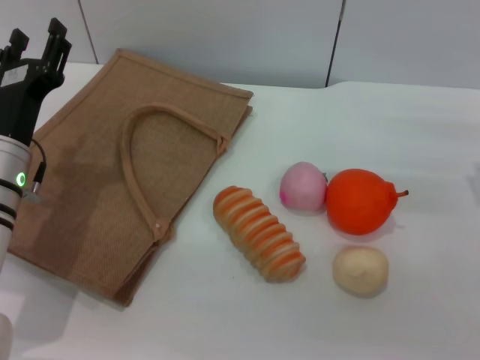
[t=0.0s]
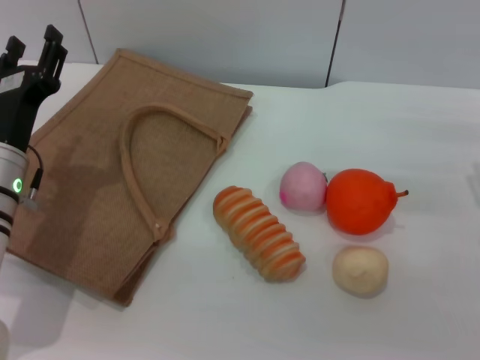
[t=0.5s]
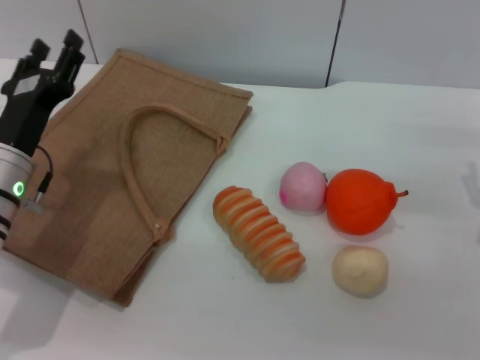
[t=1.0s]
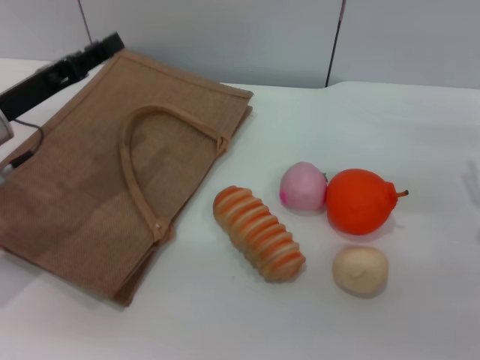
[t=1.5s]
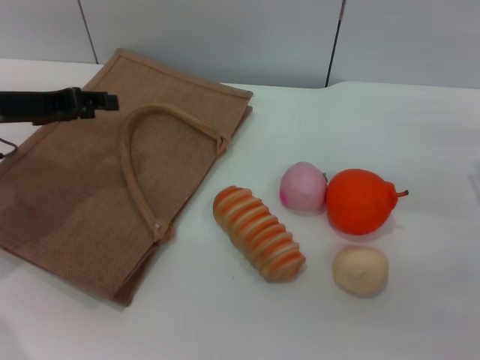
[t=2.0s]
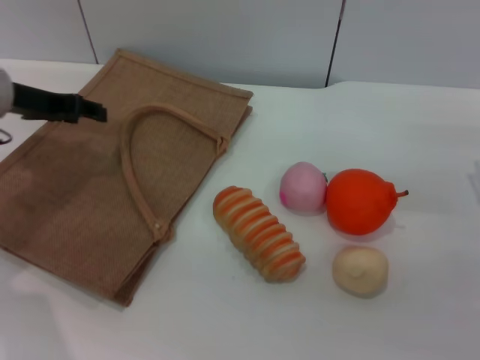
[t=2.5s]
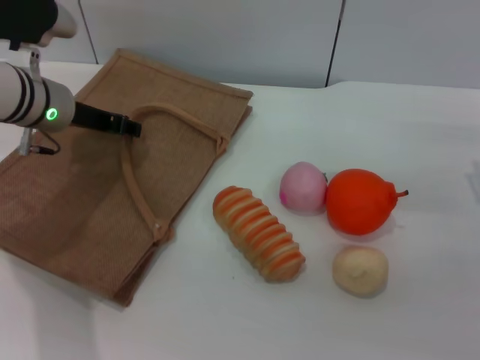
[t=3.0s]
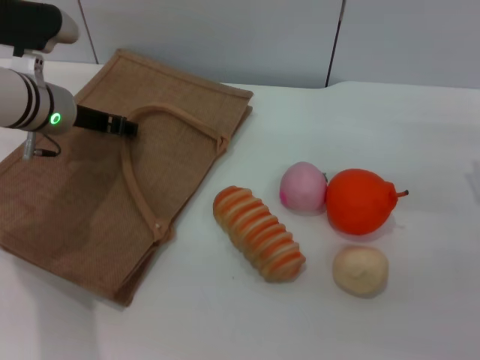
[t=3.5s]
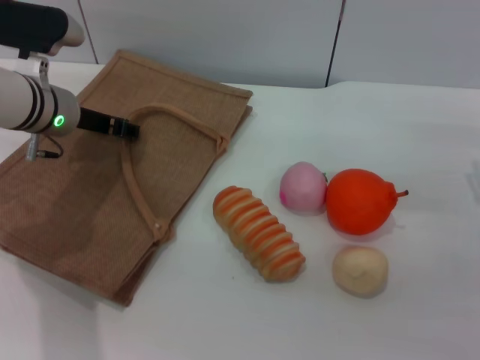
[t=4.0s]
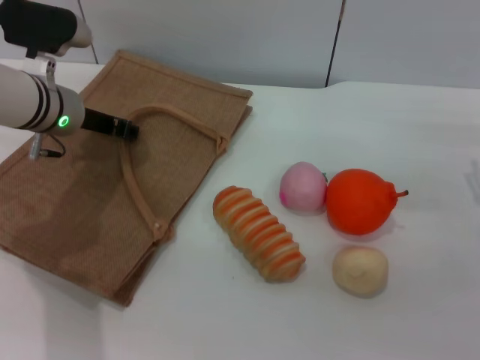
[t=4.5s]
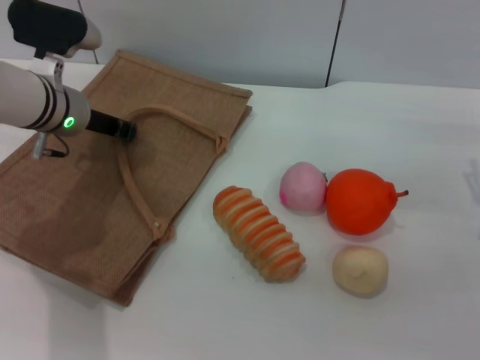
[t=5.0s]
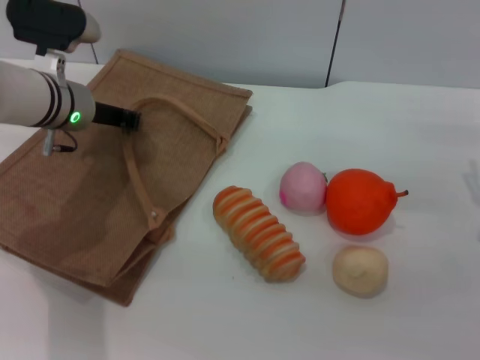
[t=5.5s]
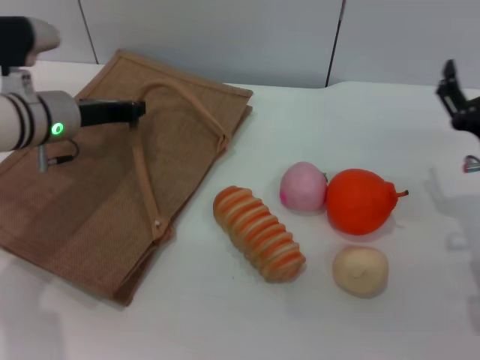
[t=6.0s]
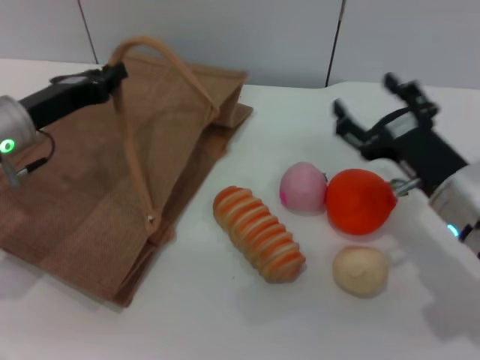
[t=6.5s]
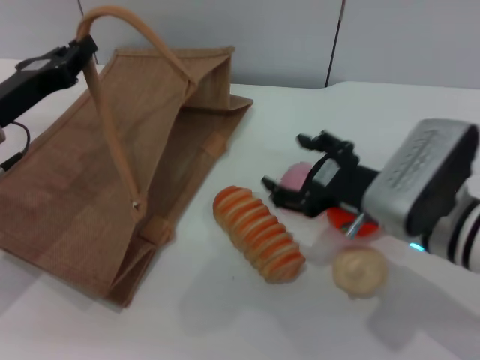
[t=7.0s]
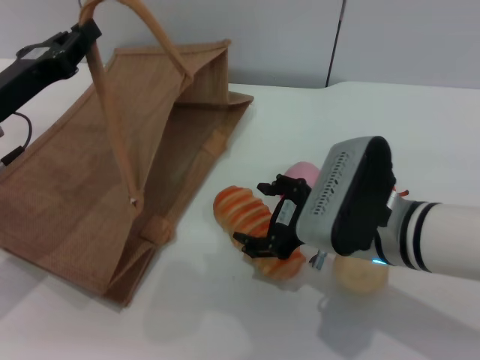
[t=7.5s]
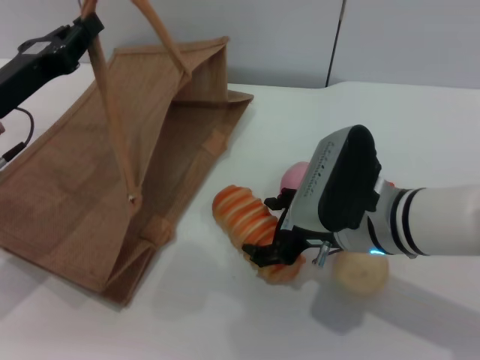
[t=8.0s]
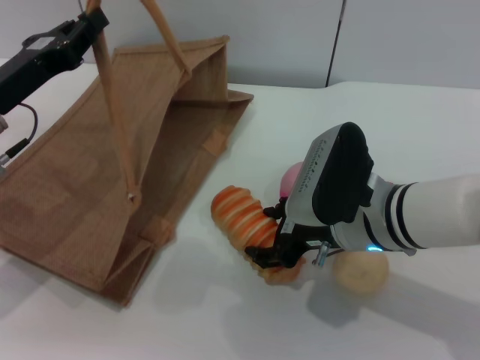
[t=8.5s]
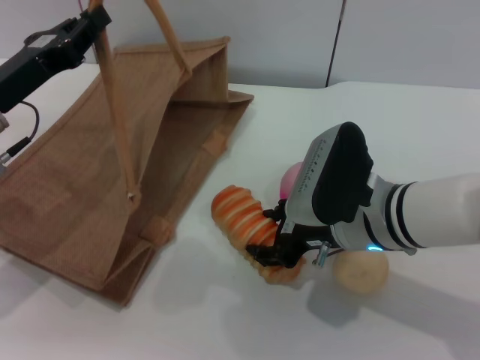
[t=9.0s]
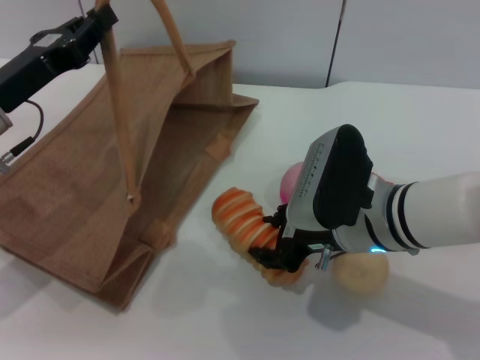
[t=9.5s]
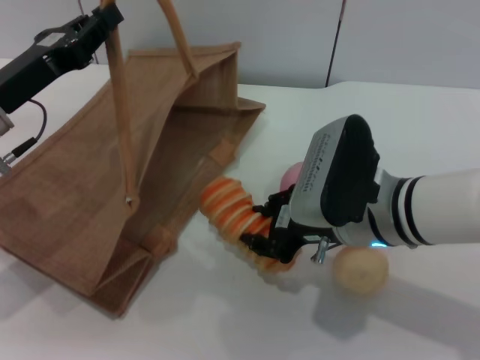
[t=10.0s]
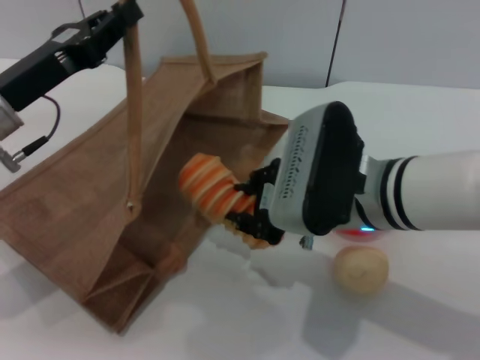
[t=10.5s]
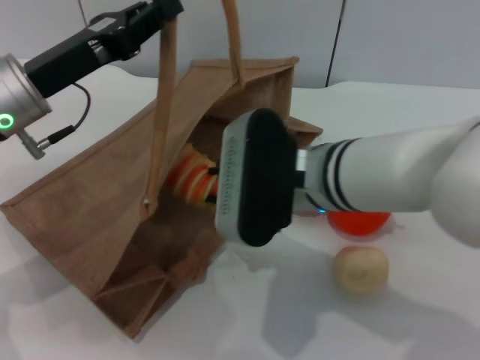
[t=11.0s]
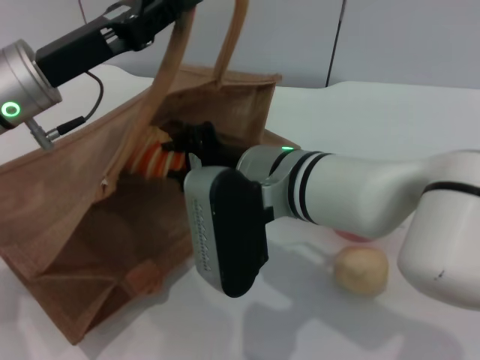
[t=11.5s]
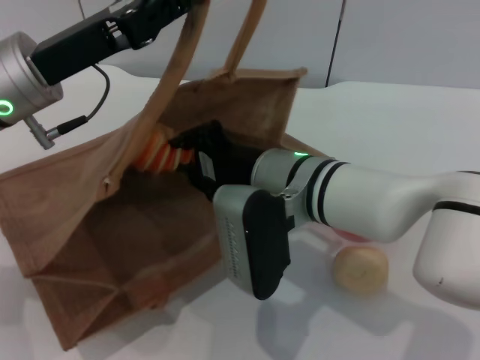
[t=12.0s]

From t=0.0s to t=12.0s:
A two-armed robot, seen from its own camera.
Task of the whole recording: pick up the bread and egg yolk pastry from the table and place it in the brown handbag.
Step, from t=0.0s to t=5.5s: Lift the woven bag with the left gripper to open it.
Step, from t=6.0s to t=10.0s: Pick up the bread with the right gripper.
From t=0.0s to t=2.0s: The left gripper is displaced upward, to the left and forward by some 10 cm.
From t=2.0s to t=4.0s: The left gripper is displaced to the right and forward by some 10 cm.
From t=4.0s to t=6.0s: The left gripper closes its fingers.
From t=6.0s to t=8.0s: The right gripper goes about 15 cm to the left; the left gripper travels backward by some 5 cm.
From t=8.0s to t=10.0s: The right gripper closes.
From t=10.0s to t=12.0s: The right gripper heads to the left, covering approximately 5 cm, while the left gripper heads to the right, covering about 5 cm.

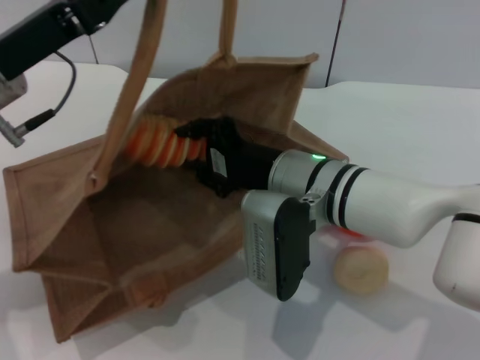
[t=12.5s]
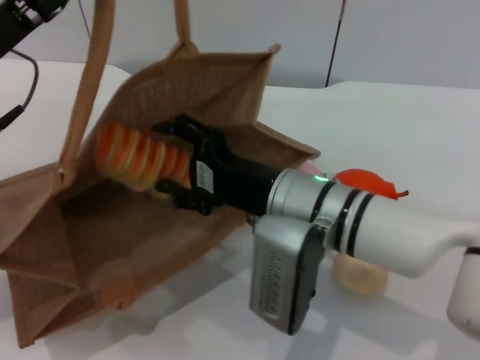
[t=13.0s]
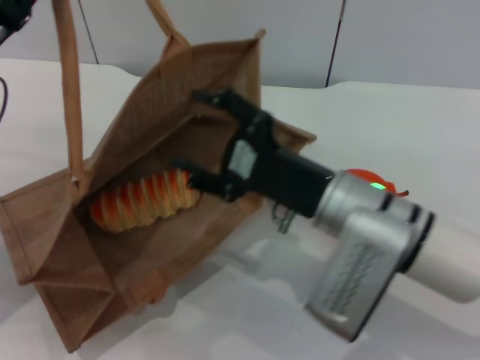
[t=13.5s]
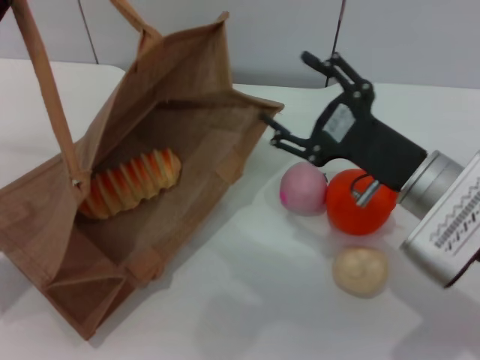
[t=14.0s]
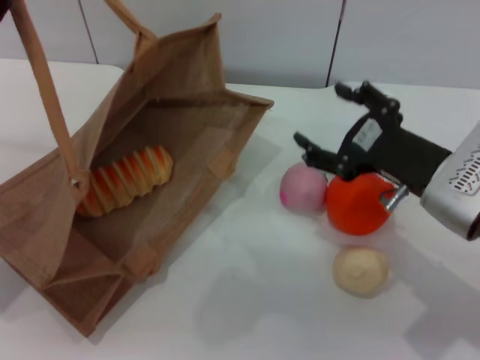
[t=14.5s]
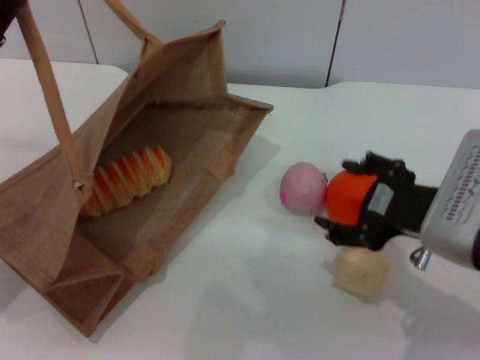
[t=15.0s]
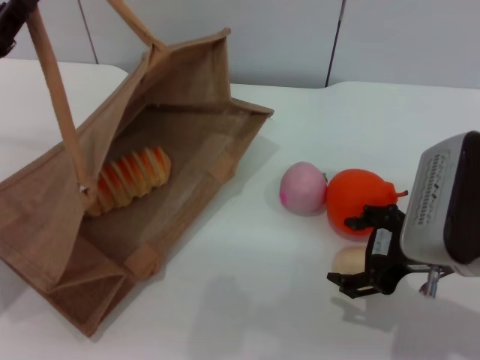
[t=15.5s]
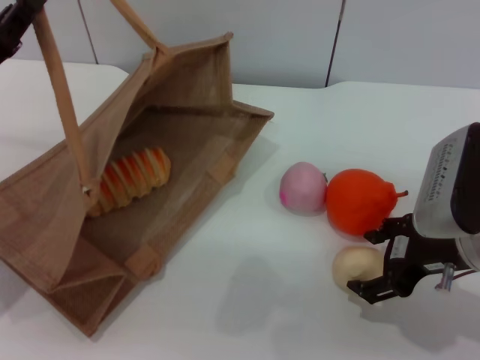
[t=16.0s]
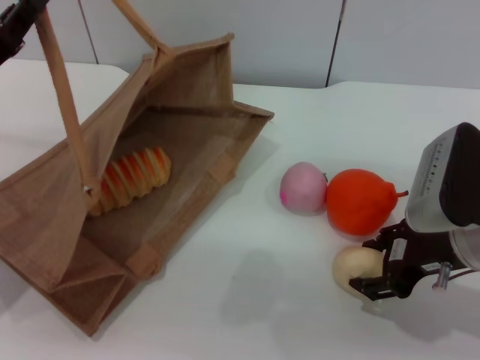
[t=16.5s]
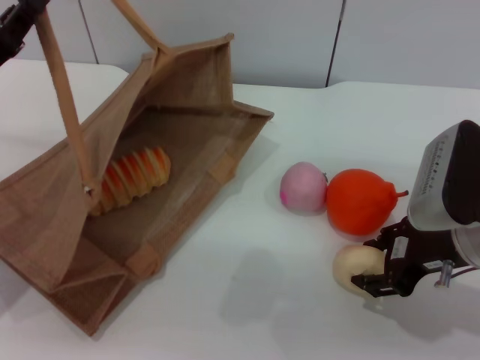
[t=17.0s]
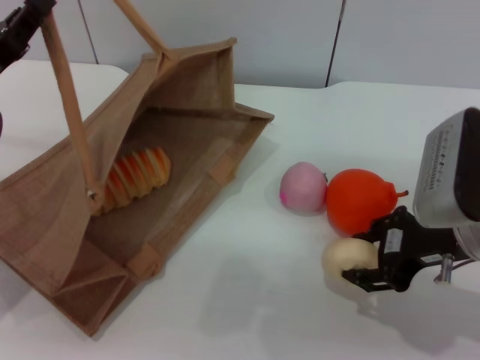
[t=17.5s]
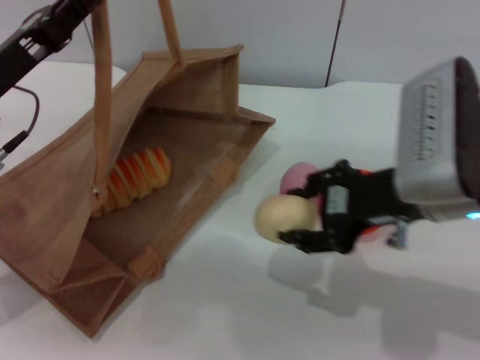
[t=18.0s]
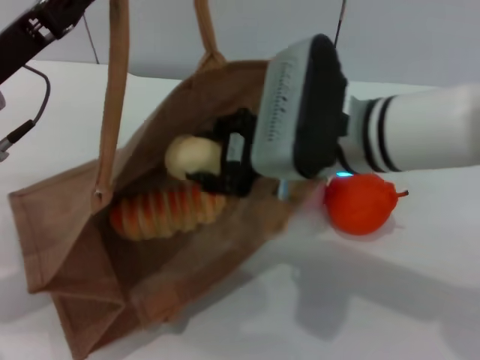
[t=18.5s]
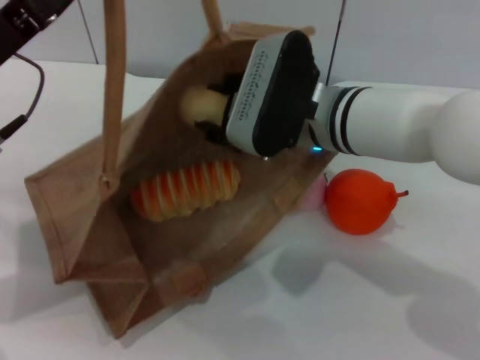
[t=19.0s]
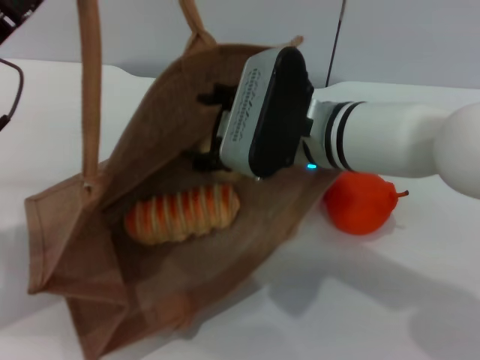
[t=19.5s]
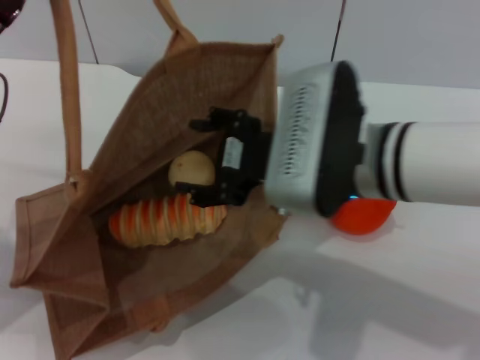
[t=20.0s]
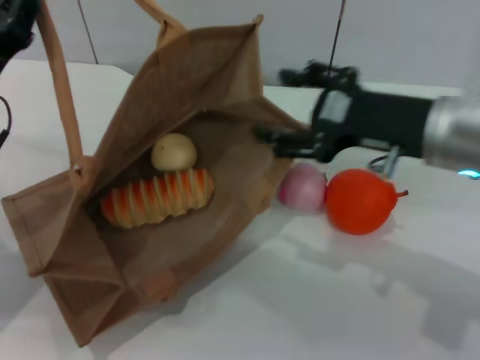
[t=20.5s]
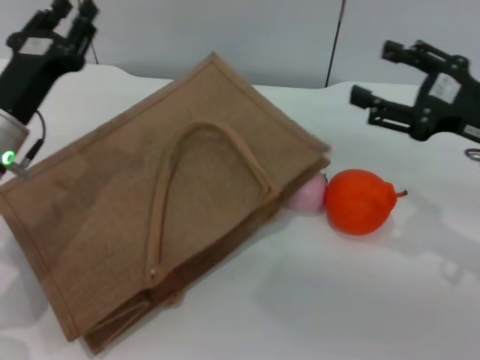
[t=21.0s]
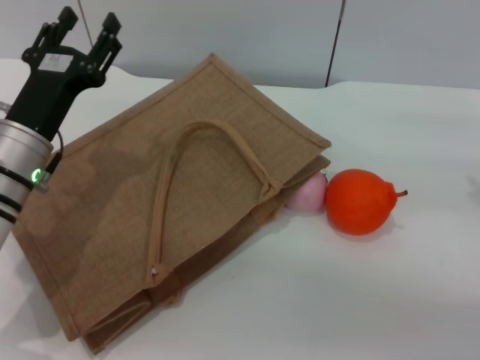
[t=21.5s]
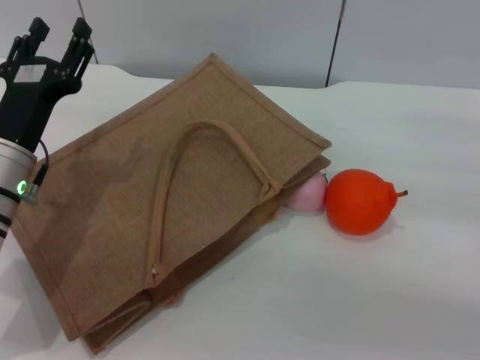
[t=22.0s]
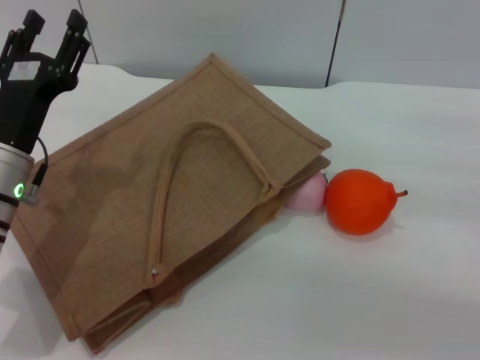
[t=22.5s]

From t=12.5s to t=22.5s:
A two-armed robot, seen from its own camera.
Task of the whole recording: pick up the bread and egg yolk pastry from the table and place it in the brown handbag.
Step, from t=14.5s to t=17.5s: Pick up the egg yolk pastry with the right gripper.
Step, from t=18.0s to t=20.5s: Place the egg yolk pastry into the woven bag with the right gripper.
Step, from t=21.0s to t=21.5s: Lower the woven bag with the left gripper to close it.
From t=12.5s to t=14.5s: The left gripper is displaced to the left and downward by some 10 cm; the right gripper is displaced to the right by approximately 15 cm, and opens its fingers.
From t=16.5s to t=18.5s: The right gripper shifts about 15 cm to the left. Meanwhile the left gripper ends up roughly 5 cm from where it was.
From t=18.5s to t=20.5s: The right gripper heads to the right, covering about 10 cm, and opens; the left gripper is displaced downward by approximately 5 cm.
From t=20.5s to t=22.5s: The left gripper shifts about 5 cm to the right, and opens, while the right gripper moves to the right and downward, approximately 20 cm.

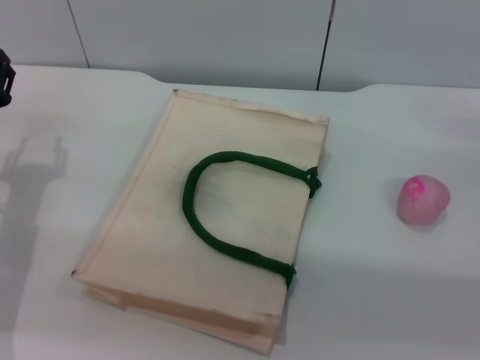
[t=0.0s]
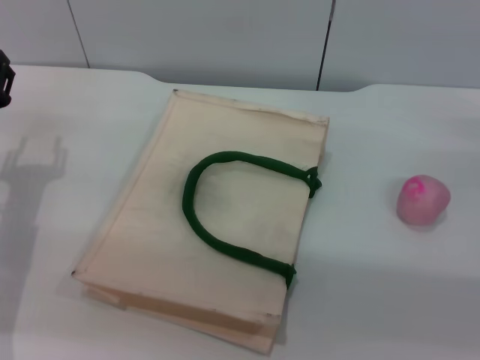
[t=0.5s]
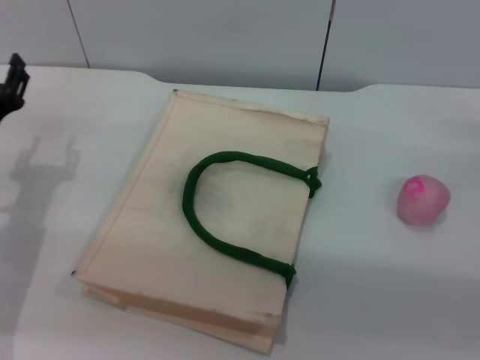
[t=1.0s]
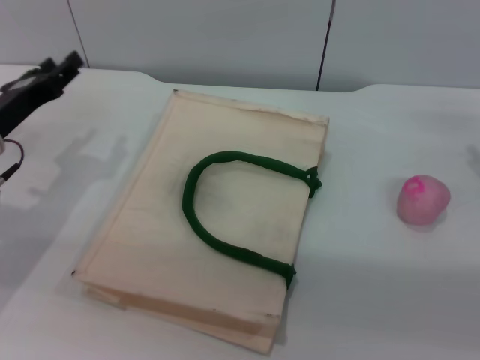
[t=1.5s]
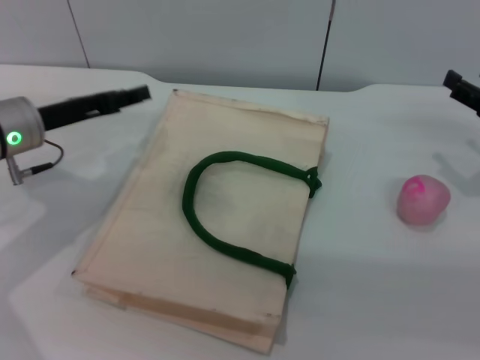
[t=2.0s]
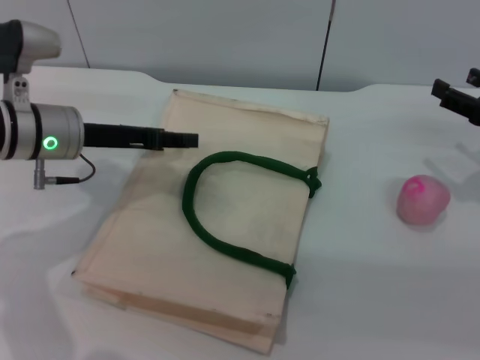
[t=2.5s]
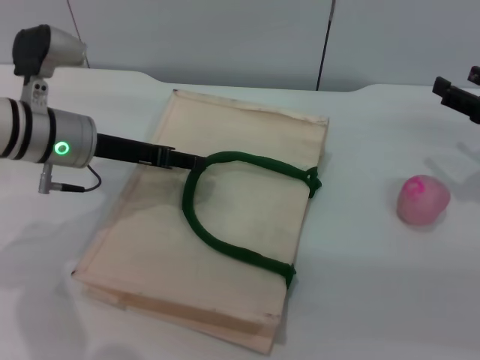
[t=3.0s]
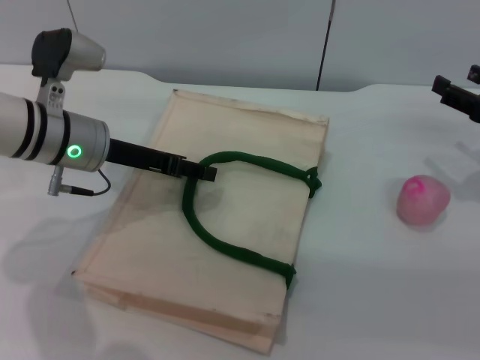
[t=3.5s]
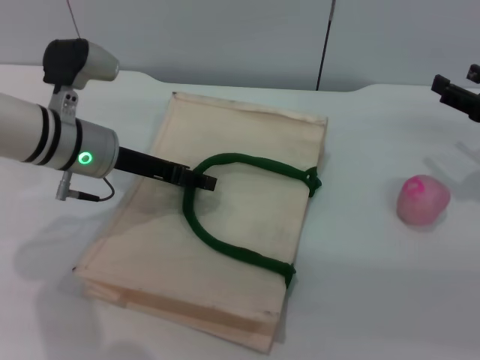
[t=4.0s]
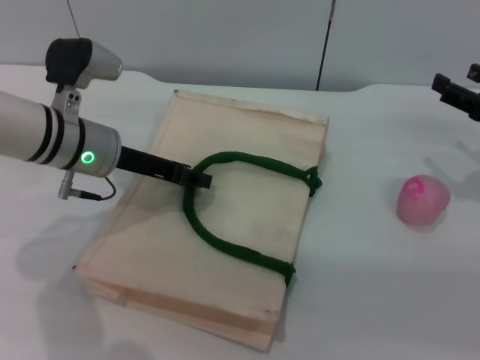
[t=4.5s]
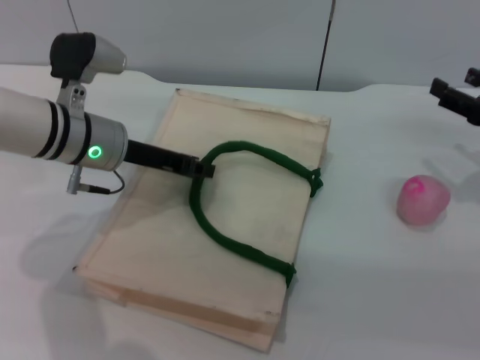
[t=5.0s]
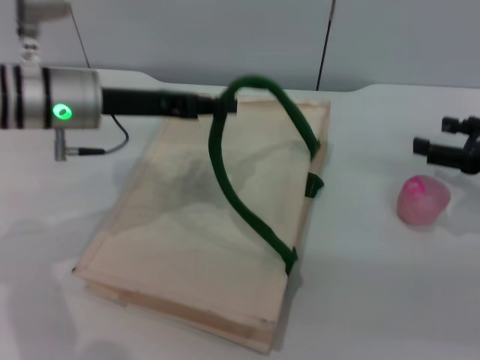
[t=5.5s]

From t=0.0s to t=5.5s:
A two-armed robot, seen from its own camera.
Task of the whole recording: pick up the peach from the table and place it in the white handbag.
Step, from t=0.0s to t=5.0s: Lift the woven bag with the left gripper to open it.
From t=0.0s to t=2.0s: The left gripper heads forward, covering about 5 cm.
From t=2.0s to t=3.5s: The left gripper heads to the right, covering roughly 5 cm.
From t=3.5s to t=5.5s: The left gripper closes.
